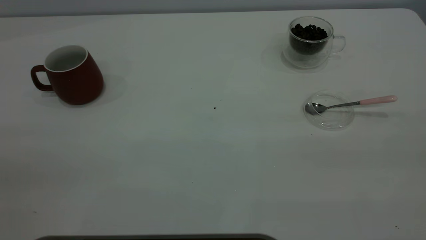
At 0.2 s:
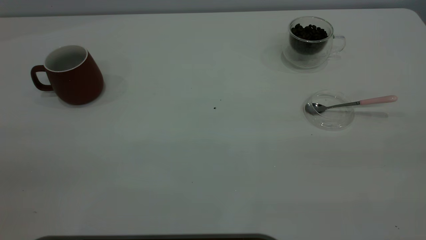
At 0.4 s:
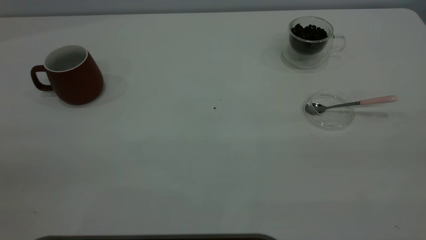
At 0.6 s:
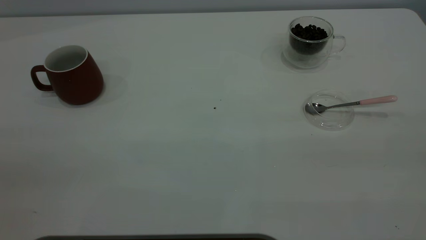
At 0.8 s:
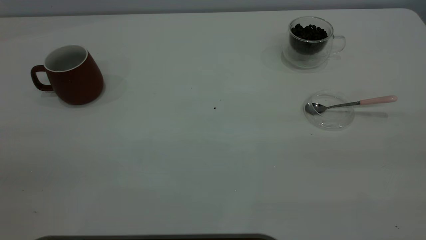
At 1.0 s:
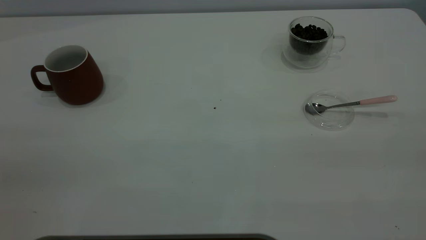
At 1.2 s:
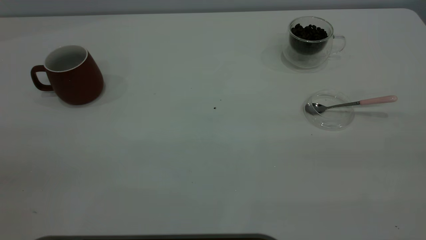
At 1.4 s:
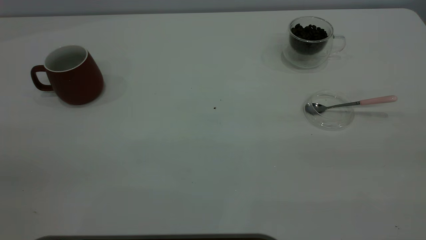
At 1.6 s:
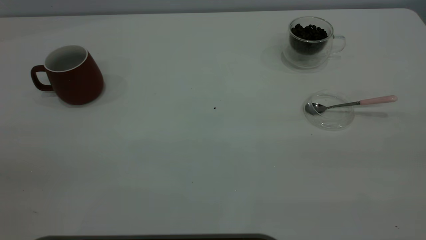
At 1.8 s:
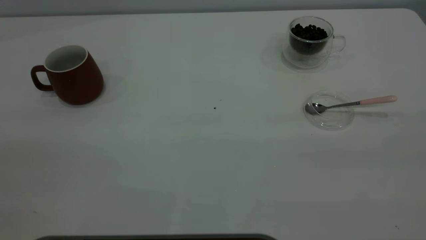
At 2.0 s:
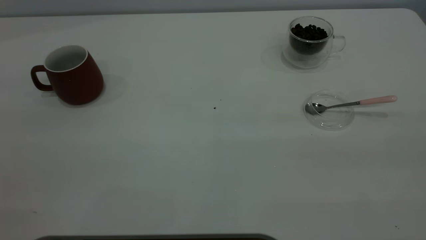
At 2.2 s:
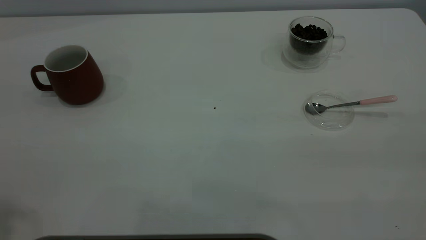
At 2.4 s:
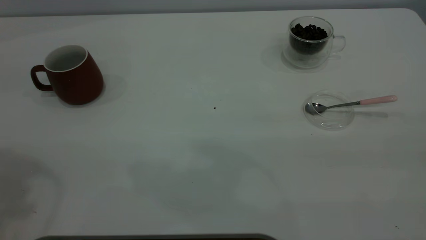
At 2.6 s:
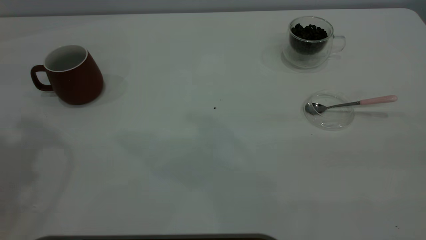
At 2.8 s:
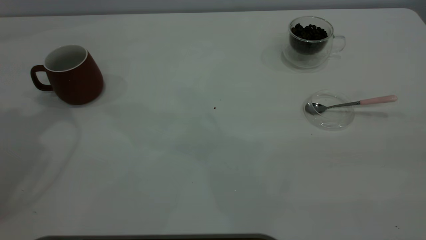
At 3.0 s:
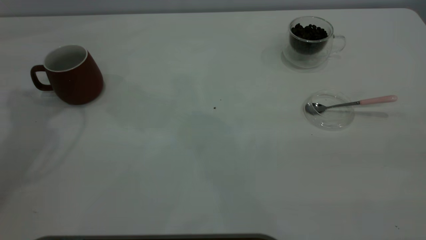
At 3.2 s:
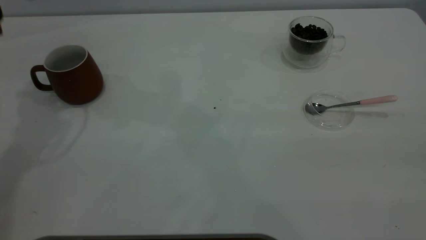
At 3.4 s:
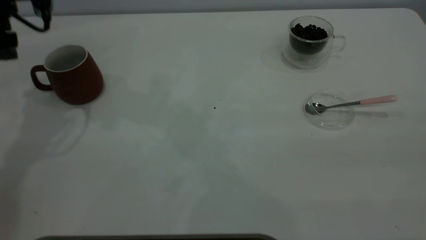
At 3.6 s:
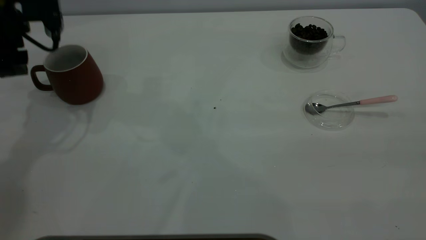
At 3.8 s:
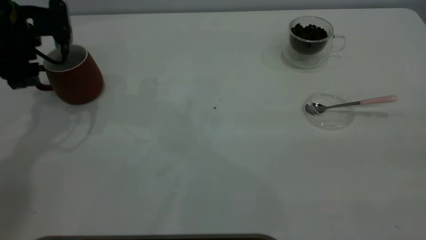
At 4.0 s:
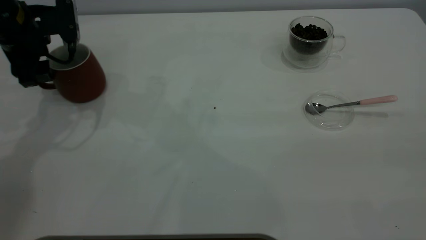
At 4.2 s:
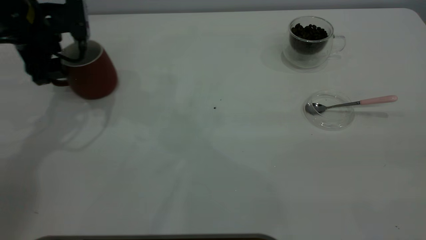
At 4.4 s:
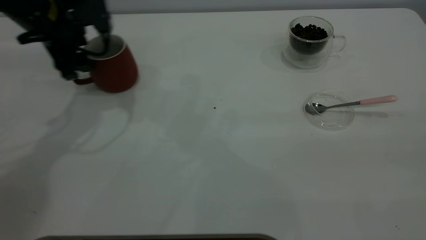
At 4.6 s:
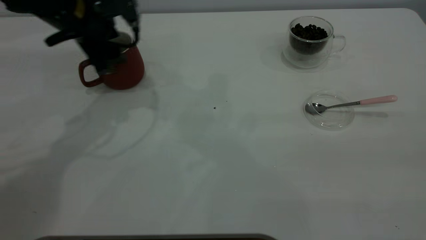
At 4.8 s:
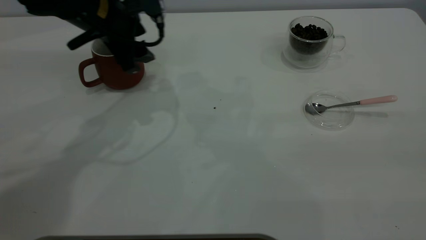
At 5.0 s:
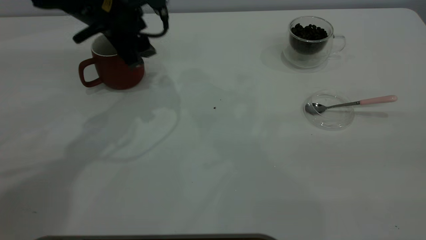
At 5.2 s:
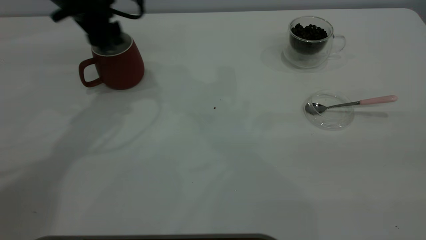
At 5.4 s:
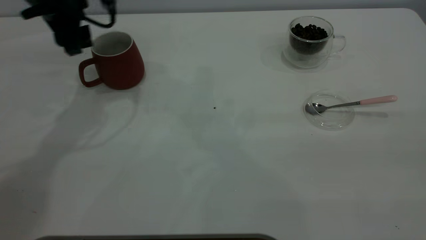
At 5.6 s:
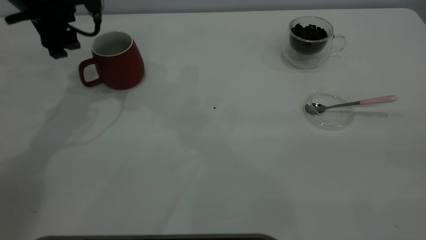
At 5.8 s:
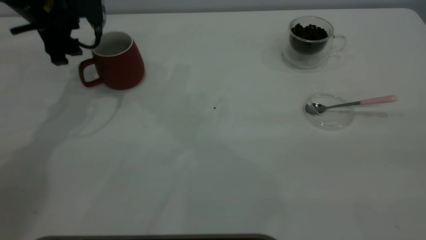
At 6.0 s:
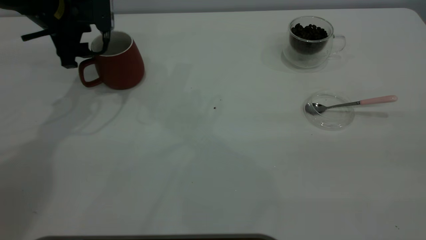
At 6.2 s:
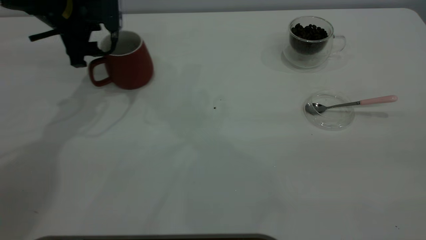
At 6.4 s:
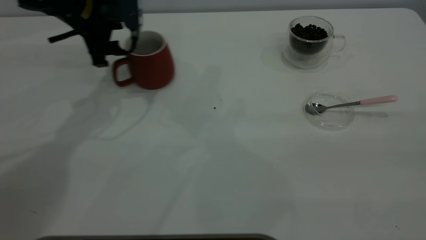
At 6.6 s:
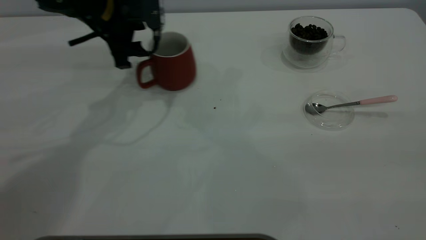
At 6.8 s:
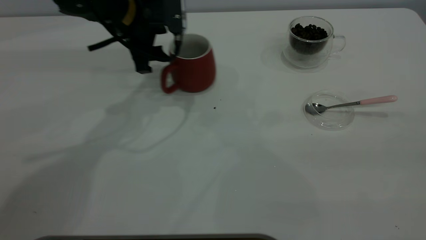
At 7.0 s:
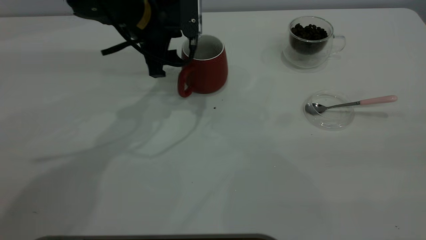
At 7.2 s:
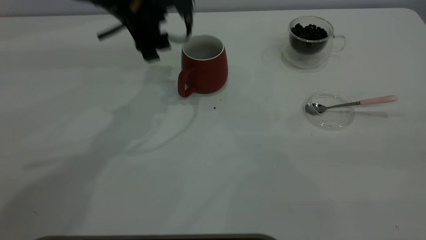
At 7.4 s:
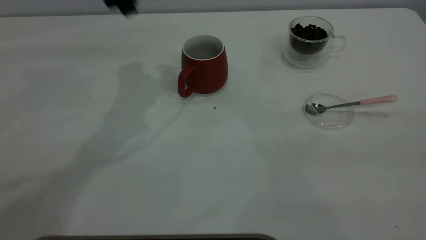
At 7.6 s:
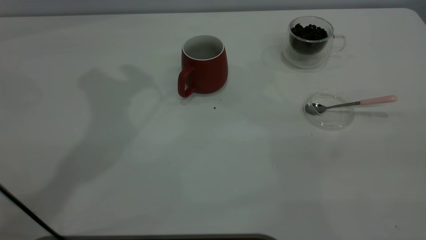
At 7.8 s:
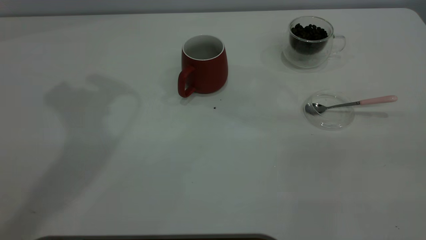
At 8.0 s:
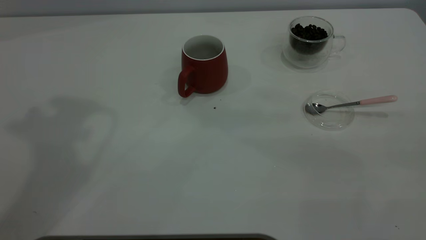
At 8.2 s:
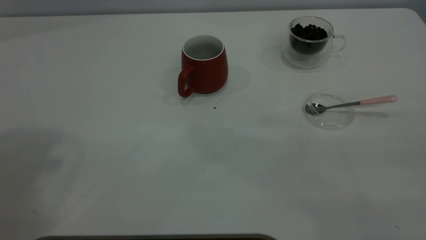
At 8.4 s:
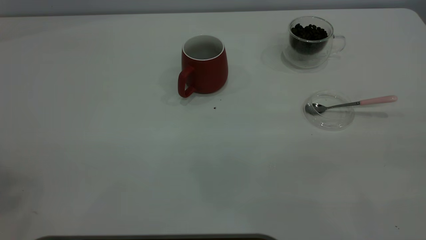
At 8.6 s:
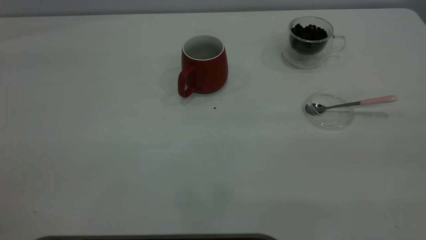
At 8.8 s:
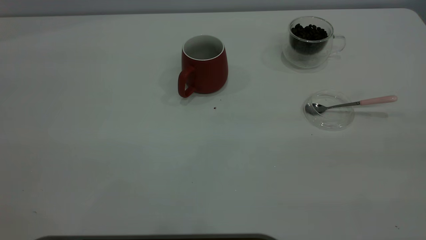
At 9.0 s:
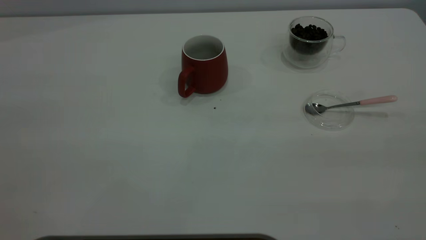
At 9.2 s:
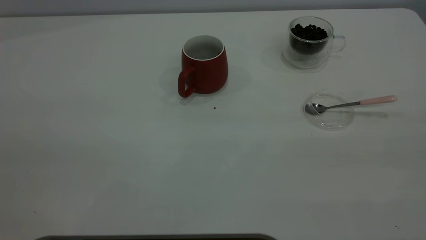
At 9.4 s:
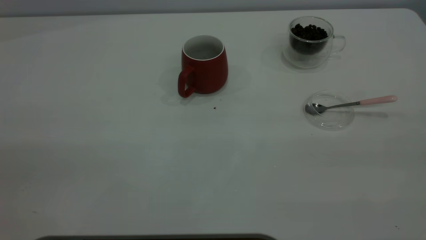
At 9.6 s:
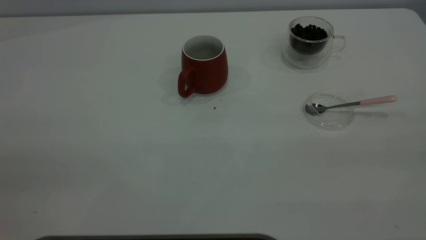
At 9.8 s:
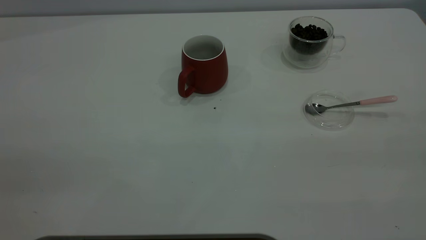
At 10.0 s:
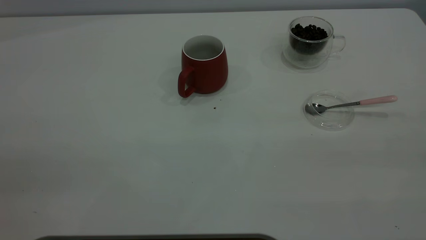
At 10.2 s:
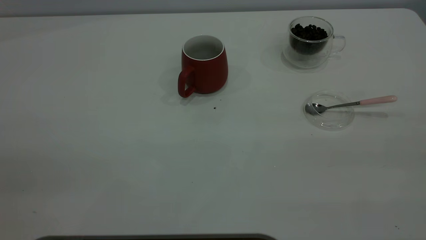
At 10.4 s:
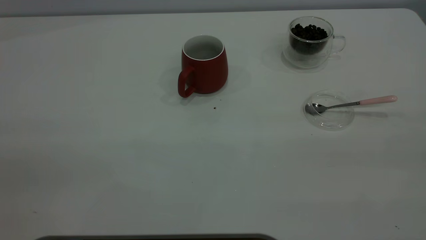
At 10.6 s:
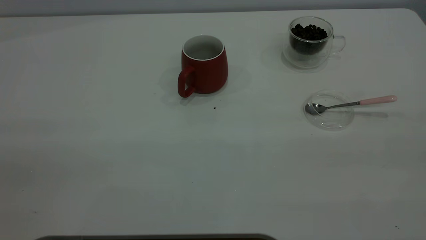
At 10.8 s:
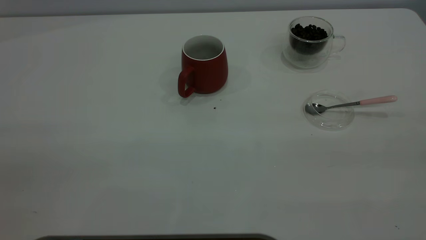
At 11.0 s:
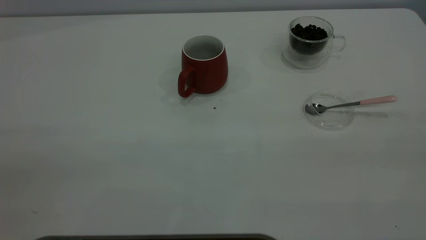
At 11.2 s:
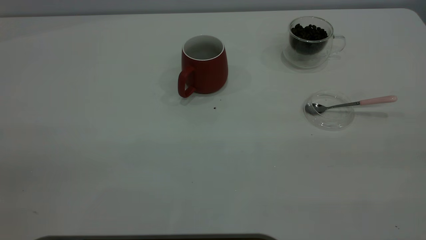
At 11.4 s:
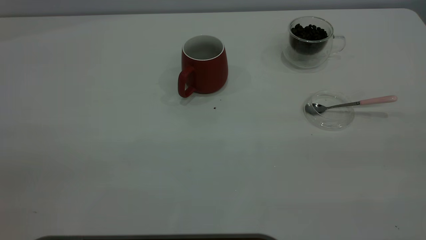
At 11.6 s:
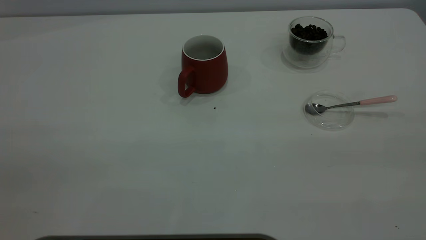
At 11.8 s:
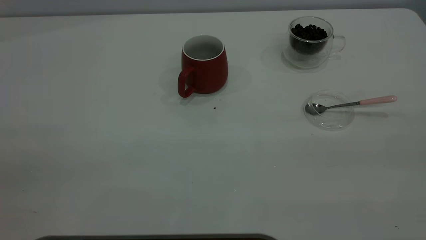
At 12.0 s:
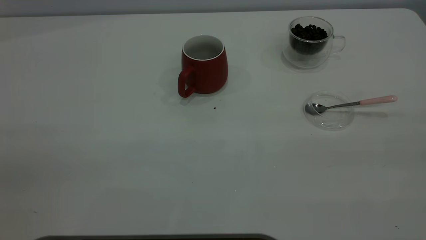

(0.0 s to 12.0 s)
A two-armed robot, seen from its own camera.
Task of the whole recording: the left gripper place the red cup in the center of the table, the right gripper take the pink spoon from the cup lid and scoop out the coffee beans from the coffee cup and put them into the red cup, the right gripper put the spoon back into the cup lid.
Step, 0.0 s - 7.0 s: Move the cup to the center of view.
0.0 s - 1.6 s: Both grippers stay put.
3.0 s - 4.4 s: The left gripper heads downward and to the right, covering some 15 cm.
4.4 s - 6.0 s: The left gripper moves some 5 cm to the right and comes back.
6.0 s - 7.6 s: The left gripper travels upward by roughly 20 cm.

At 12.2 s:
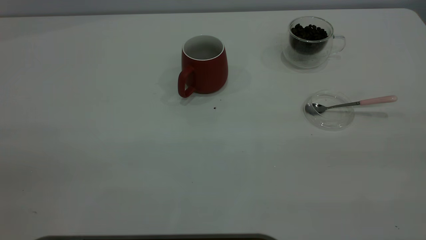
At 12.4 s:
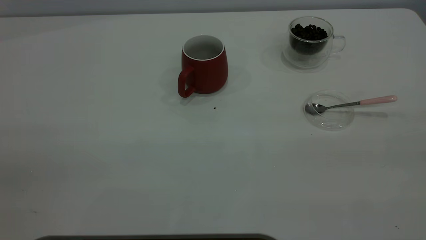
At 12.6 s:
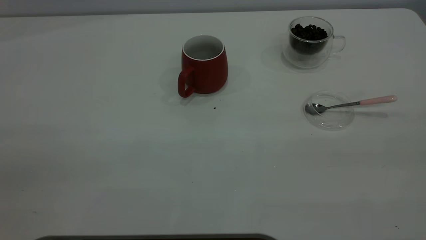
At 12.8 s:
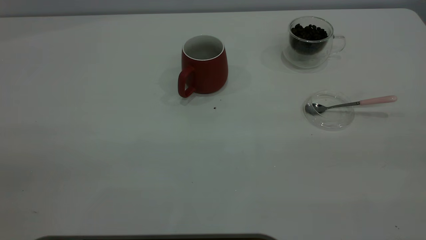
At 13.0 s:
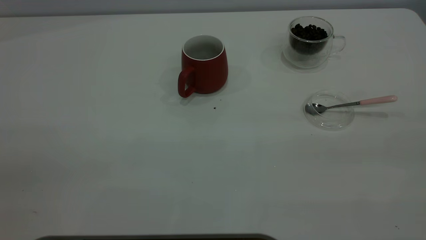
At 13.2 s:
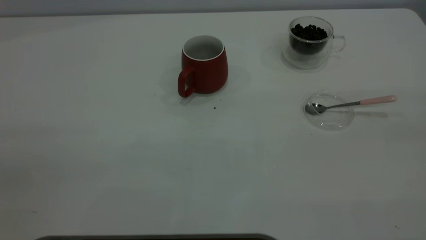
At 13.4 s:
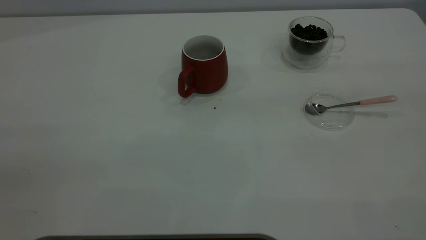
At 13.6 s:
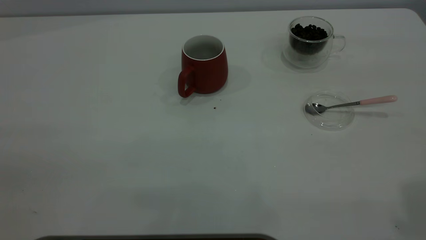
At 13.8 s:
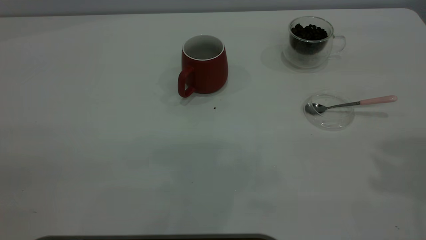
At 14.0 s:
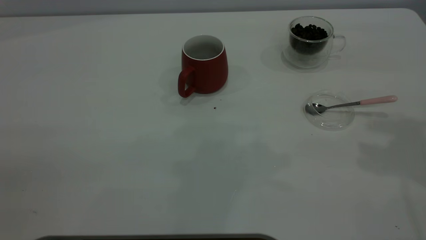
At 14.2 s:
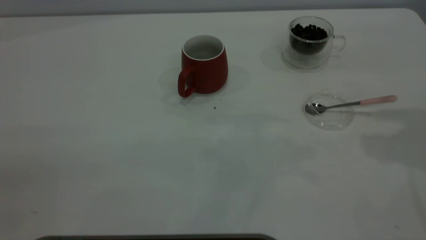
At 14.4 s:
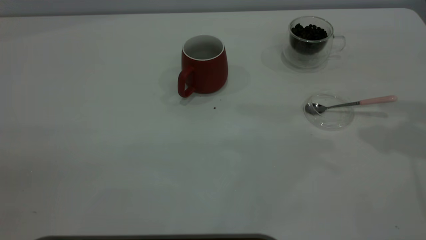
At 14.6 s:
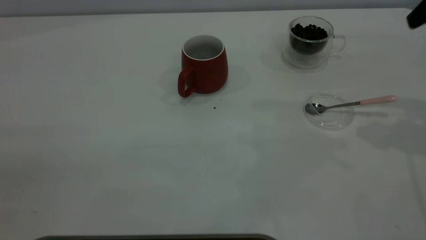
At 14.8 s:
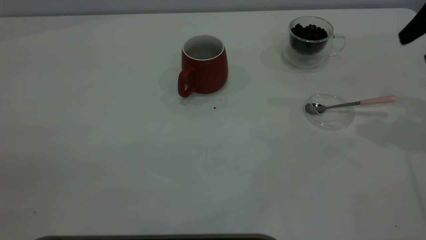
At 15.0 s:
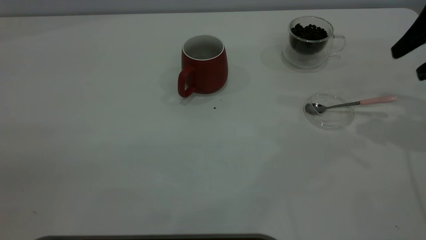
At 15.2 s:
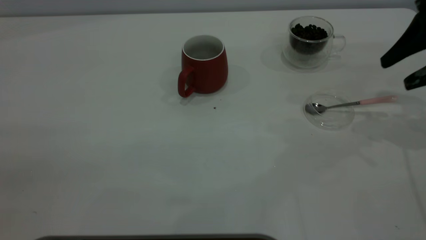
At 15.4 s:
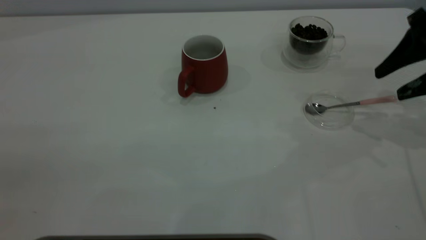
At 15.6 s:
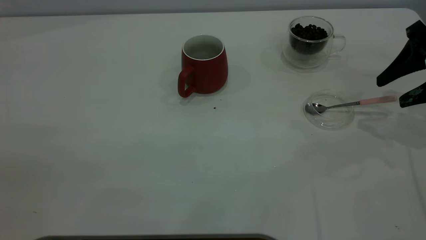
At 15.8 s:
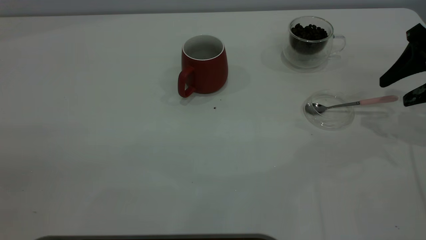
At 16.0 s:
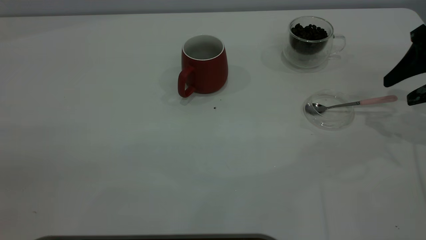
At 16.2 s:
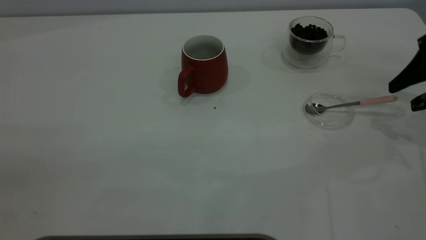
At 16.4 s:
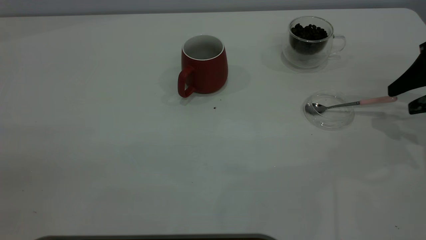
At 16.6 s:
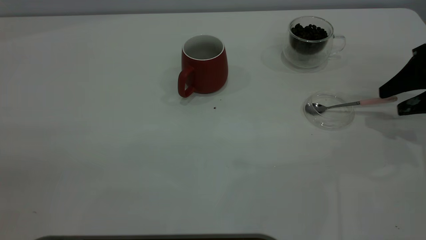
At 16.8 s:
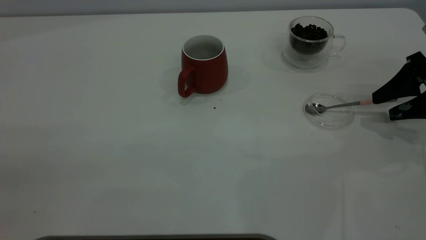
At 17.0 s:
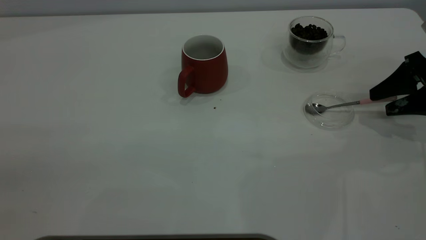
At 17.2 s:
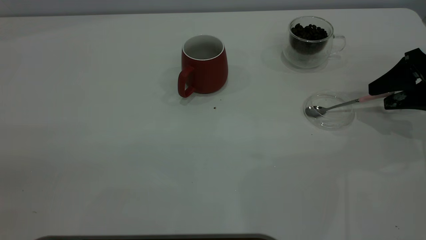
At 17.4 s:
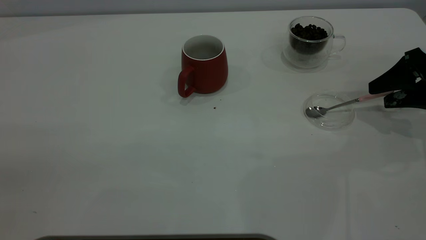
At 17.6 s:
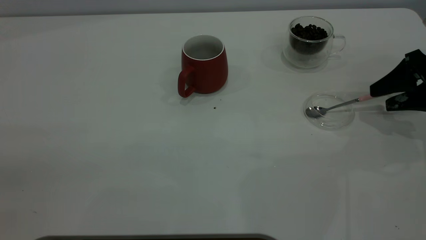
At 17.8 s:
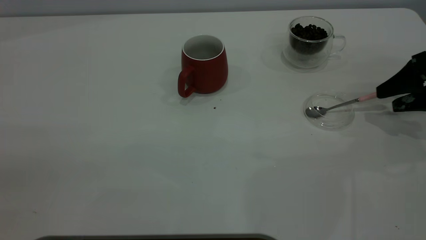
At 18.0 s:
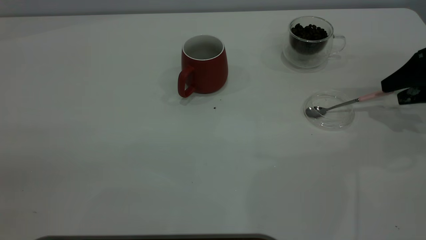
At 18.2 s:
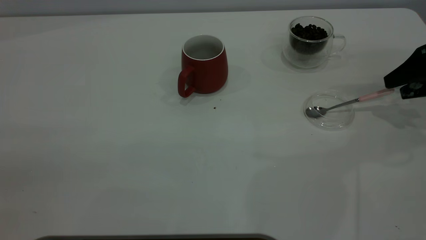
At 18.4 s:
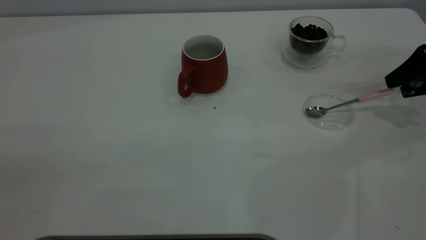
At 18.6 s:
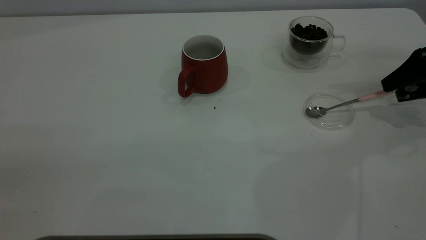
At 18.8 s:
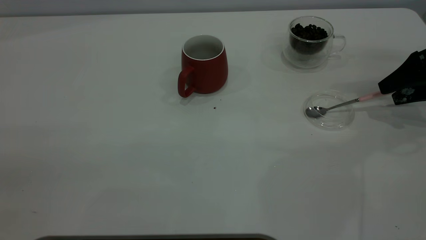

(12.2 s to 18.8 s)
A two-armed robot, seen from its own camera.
Task of the whole recording: the left gripper place the red cup in the center of the table, the right gripper take the pink spoon from the cup lid and scoop out the coffee beans from the coffee cup and put them into the red cup, the right gripper put the spoon back into the cup lid.
13.8 s - 15.4 s: The right gripper travels downward and forward by some 25 cm.
15.4 s - 17.2 s: The right gripper is displaced downward by some 5 cm.
17.2 s - 18.8 s: The grippers make only small movements.
